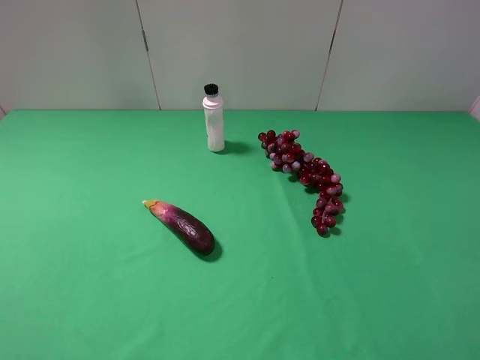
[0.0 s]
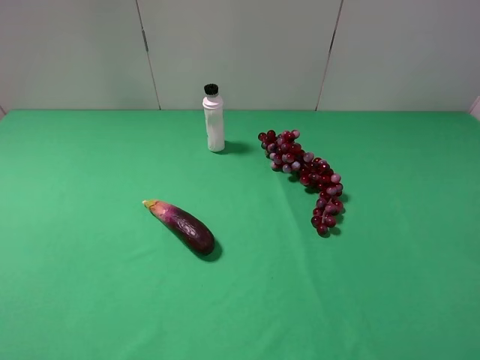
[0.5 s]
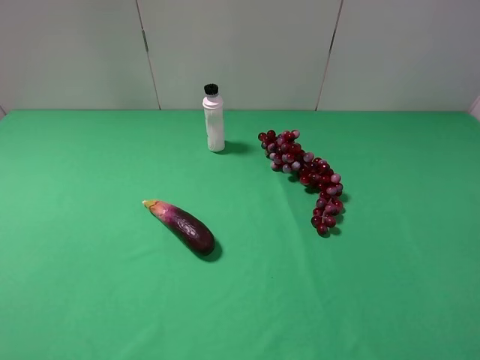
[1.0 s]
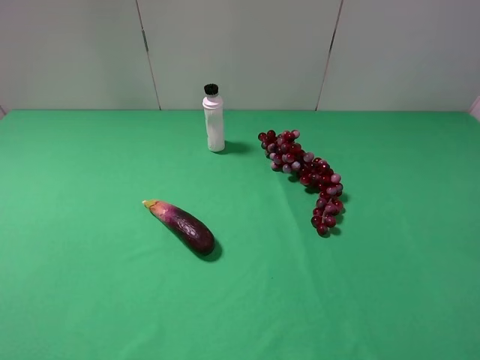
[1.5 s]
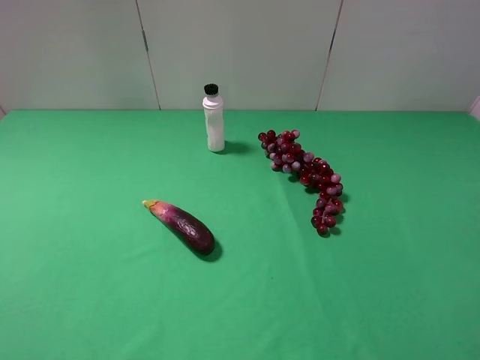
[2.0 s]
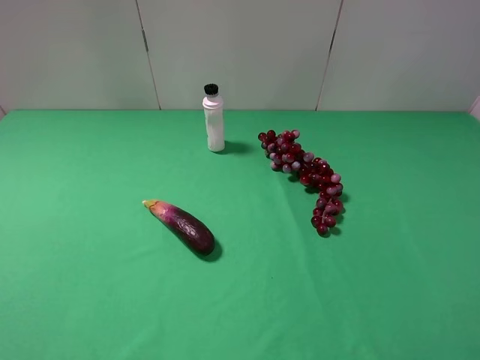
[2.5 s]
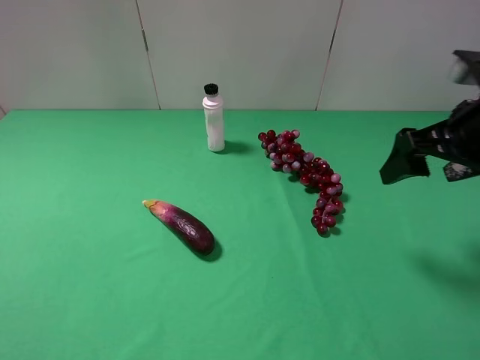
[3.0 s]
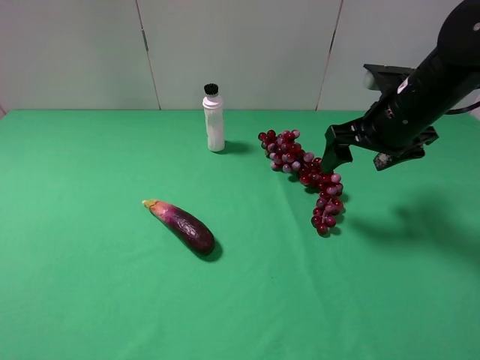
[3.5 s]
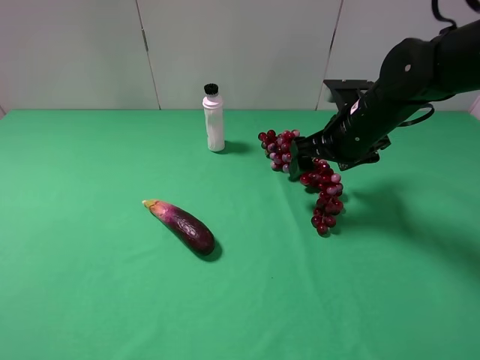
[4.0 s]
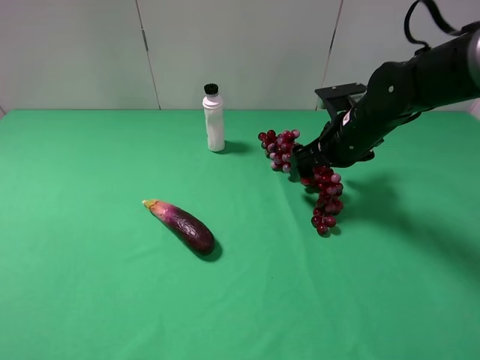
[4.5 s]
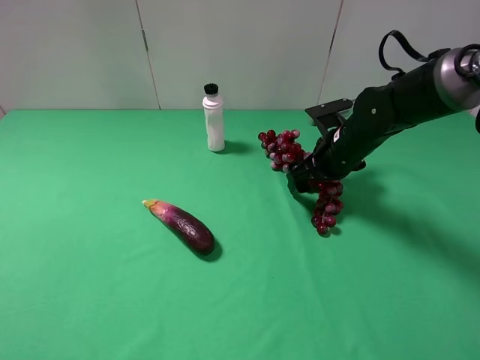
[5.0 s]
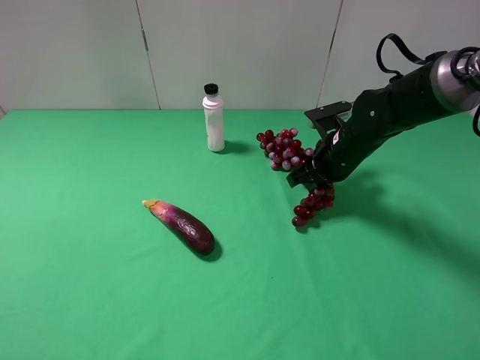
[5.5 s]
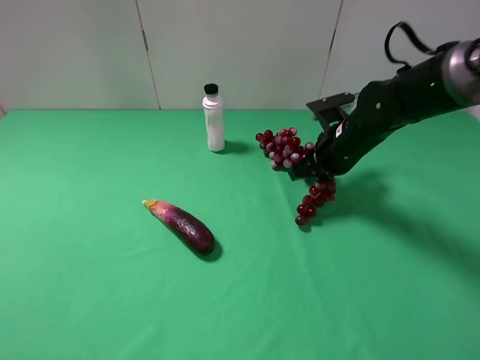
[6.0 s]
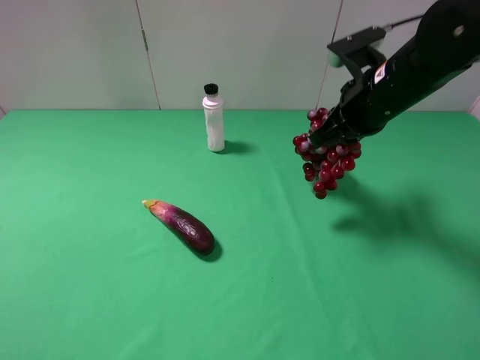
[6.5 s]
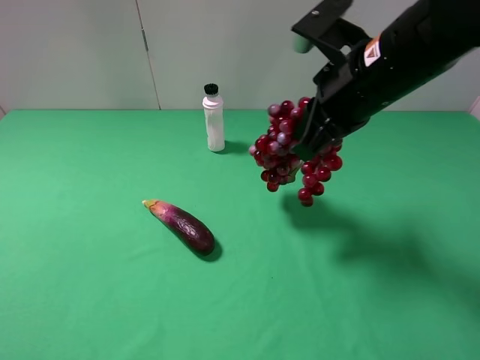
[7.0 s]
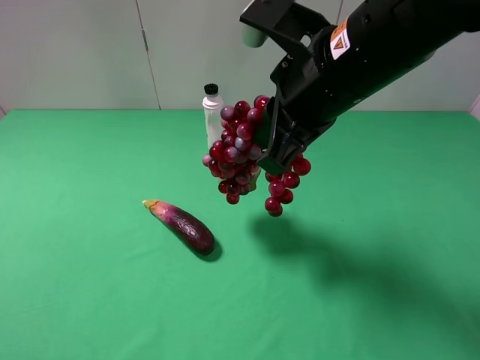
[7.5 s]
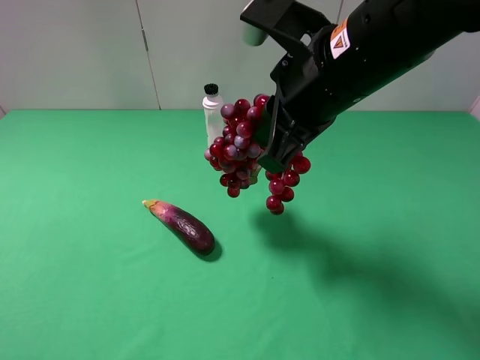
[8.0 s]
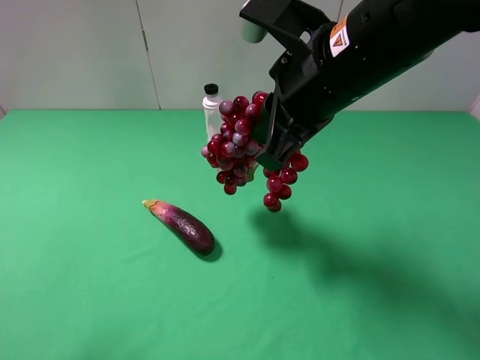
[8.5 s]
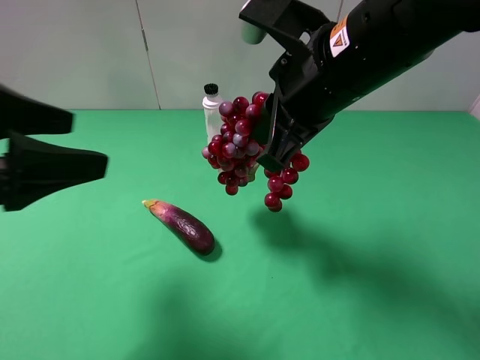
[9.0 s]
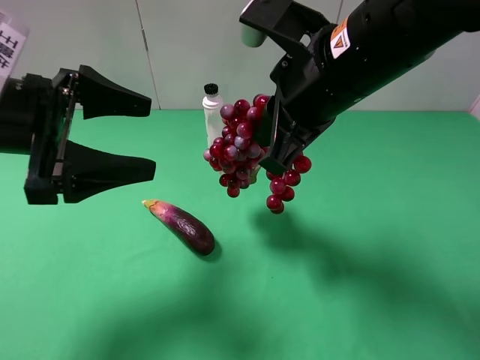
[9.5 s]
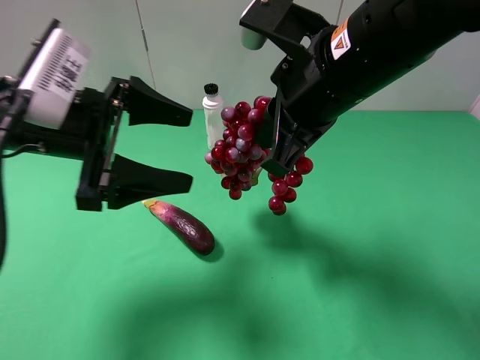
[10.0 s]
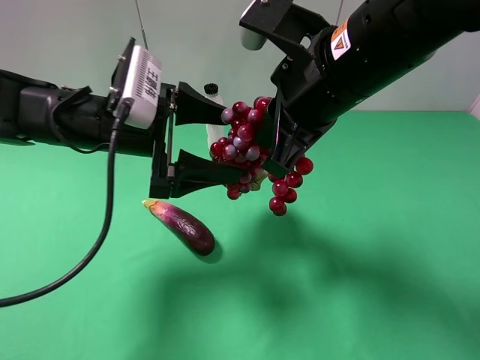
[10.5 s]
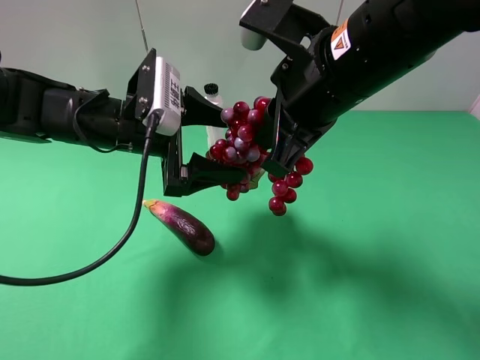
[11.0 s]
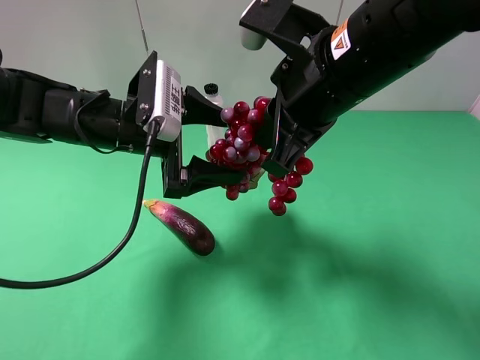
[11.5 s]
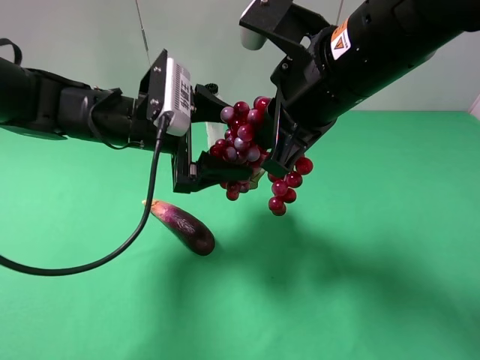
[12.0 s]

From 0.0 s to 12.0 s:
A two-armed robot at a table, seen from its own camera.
Task of the whole recording: use the right gripper to pick up the item and transfer it from the right gripper to the left gripper.
Step, from 0.0 s to 5.5 s: Use the right gripper to grab the grape on the right side of the table.
From 0.0 s to 2.0 s: Neither gripper changes place.
From 2.0 s to 4.0 s: The right gripper moves forward and to the left, about 35 cm.
From 4.0 s to 6.0 s: The right gripper closes its fingers.
From 6.0 s to 8.0 s: The right gripper goes some 20 cm upward, backward and to the left.
From 8.0 s to 10.0 s: The left gripper heads forward and to the right, covering about 25 cm.
From 10.0 s to 12.0 s: The left gripper heads to the right and forward, covering about 10 cm.

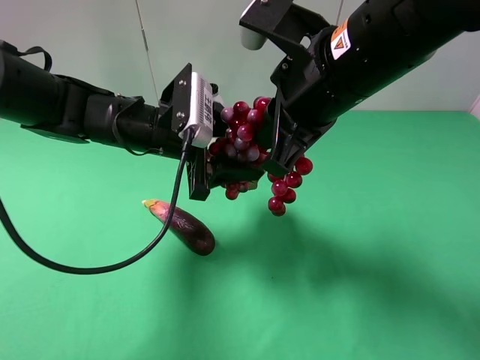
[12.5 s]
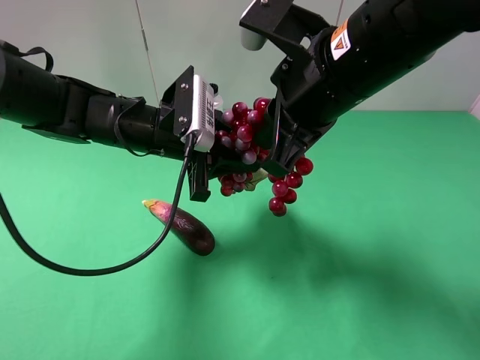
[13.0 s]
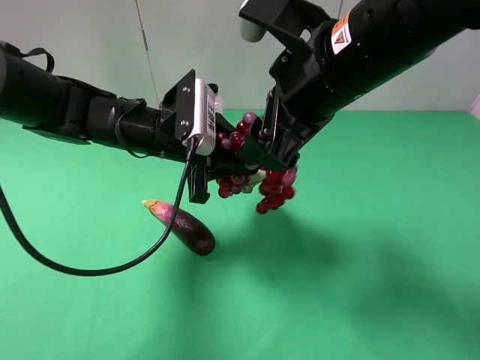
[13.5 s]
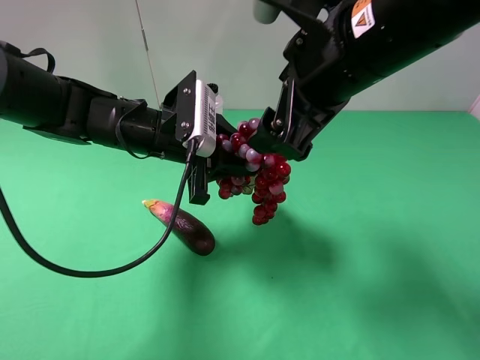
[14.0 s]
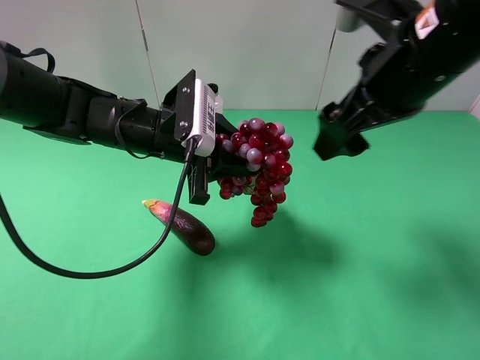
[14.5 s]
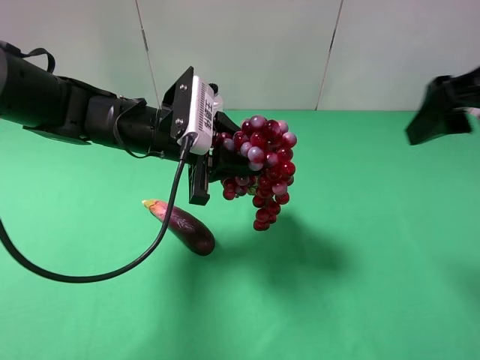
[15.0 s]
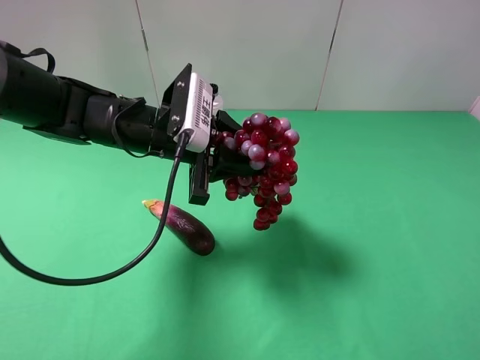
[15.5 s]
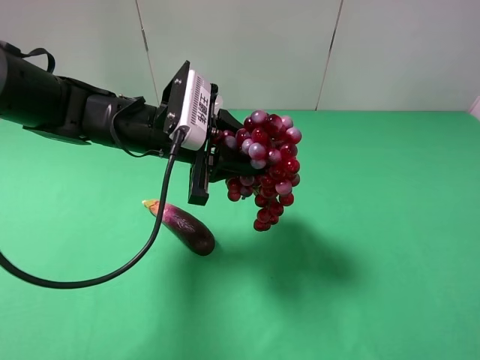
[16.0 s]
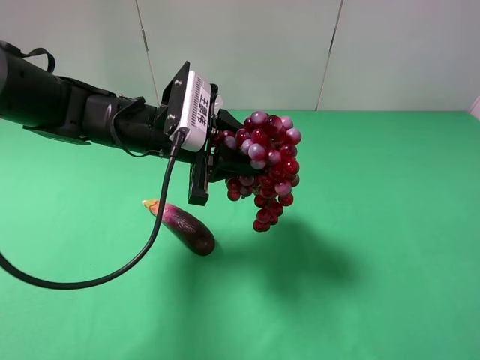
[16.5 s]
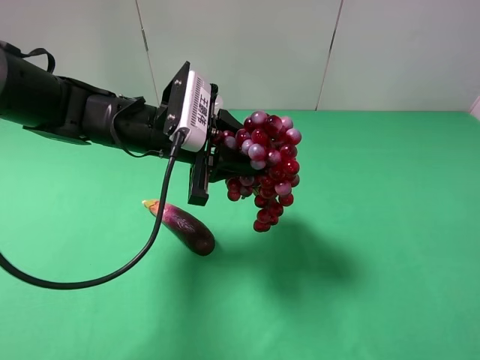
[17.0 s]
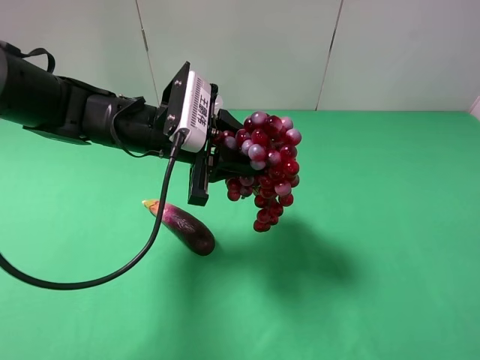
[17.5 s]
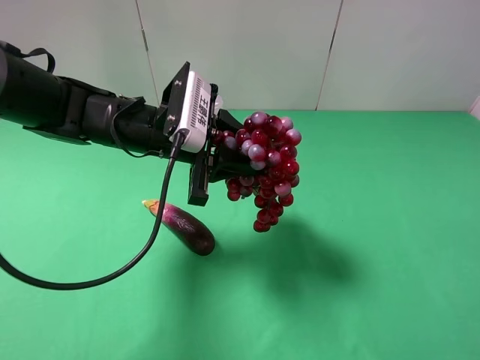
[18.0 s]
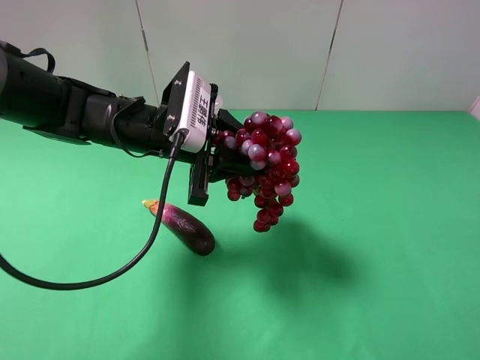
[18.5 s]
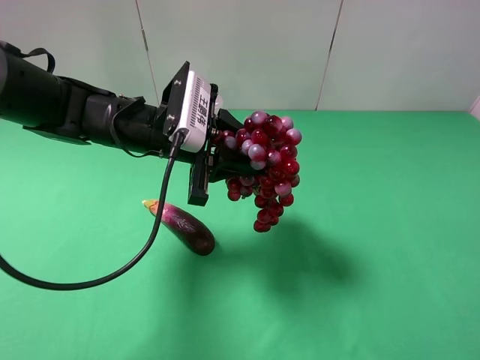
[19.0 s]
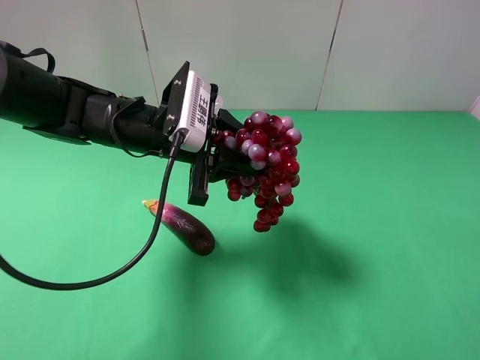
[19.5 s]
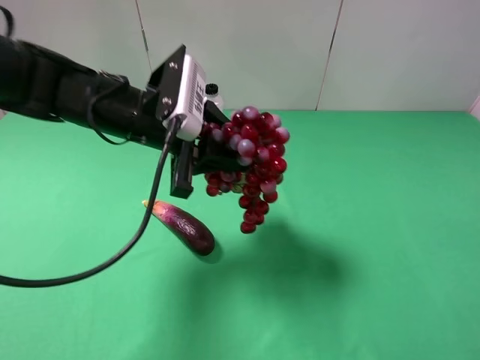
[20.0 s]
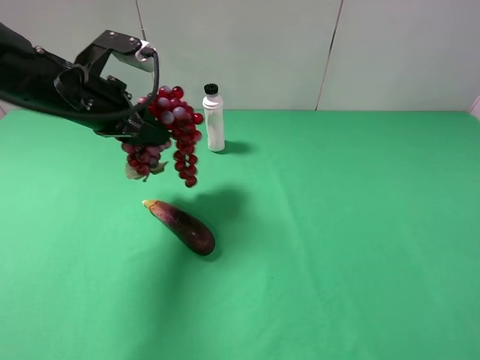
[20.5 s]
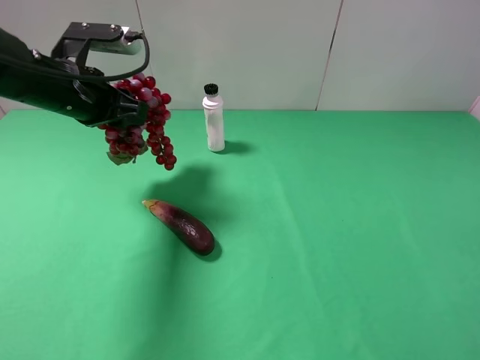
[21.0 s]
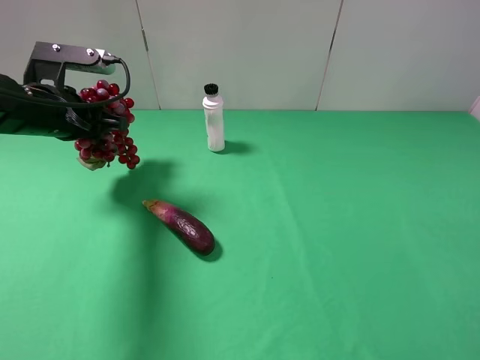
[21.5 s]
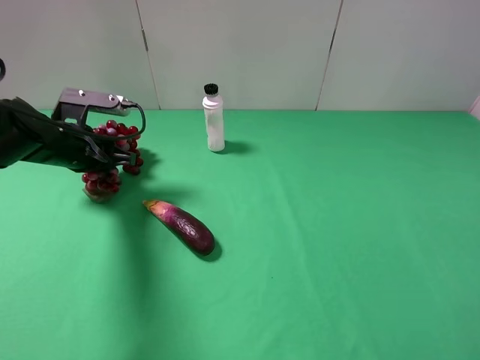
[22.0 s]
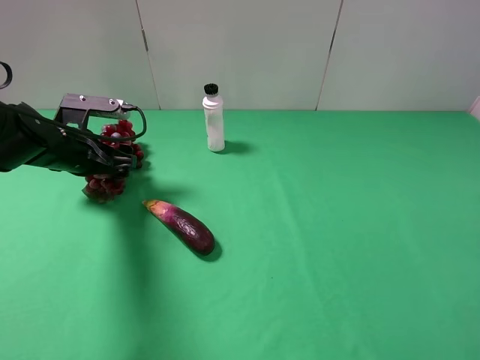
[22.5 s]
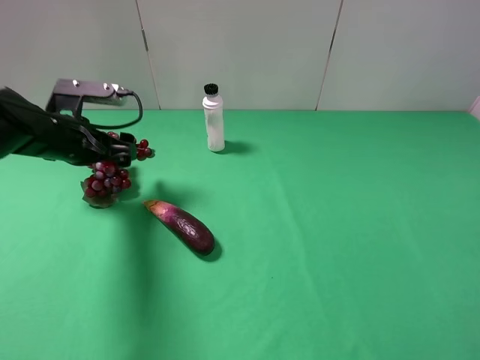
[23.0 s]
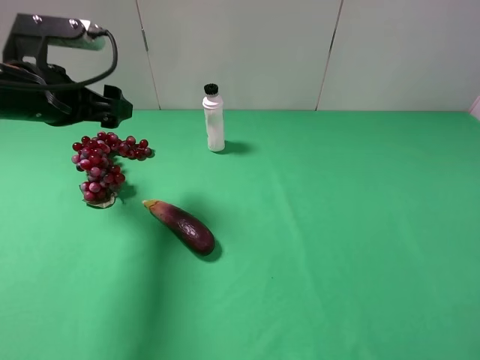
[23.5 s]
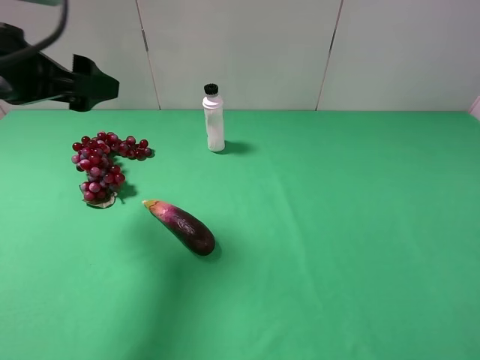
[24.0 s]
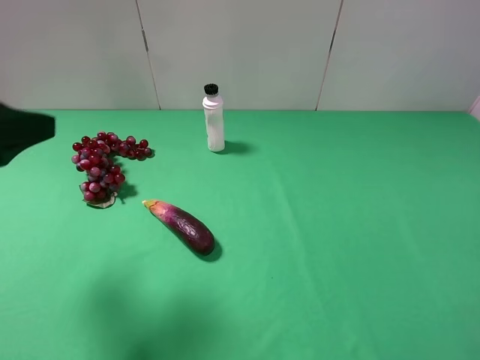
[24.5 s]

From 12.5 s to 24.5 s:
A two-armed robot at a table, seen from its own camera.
Task of the whole recording: use the right gripper to pick up the item and transfer it from the right gripper to the left gripper.
Step, from 14.5 s to 23.0 s: The left gripper places grape on the left side of the table.
From 12.5 s to 14.5 s: The right gripper shifts some 10 cm to the right, and opens.
From 14.5 s to 16.5 s: The right gripper moves backward and to the right, roughly 25 cm.
From 18.5 s to 20.5 s: The left gripper heads to the left, covering roughly 10 cm.
From 20.5 s to 22.5 s: The left gripper heads downward, covering about 10 cm, and opens its fingers.
From 22.5 s to 24.5 s: The left gripper travels backward and upward by about 25 cm.

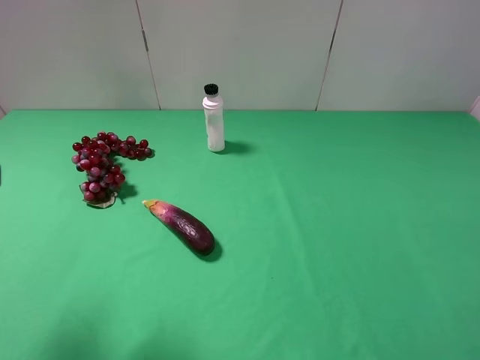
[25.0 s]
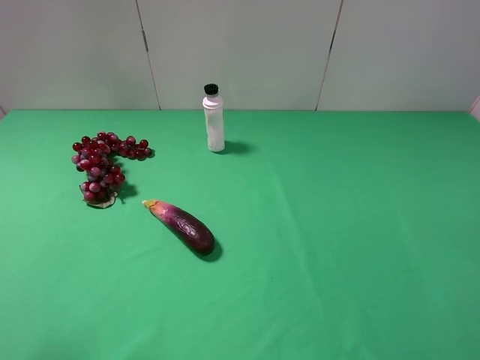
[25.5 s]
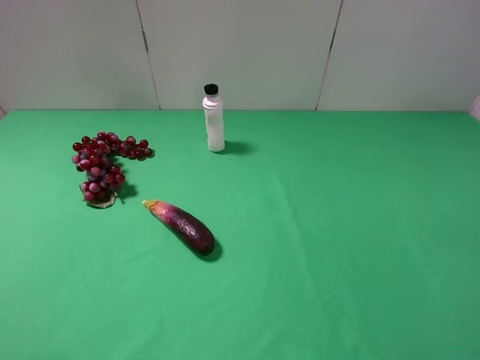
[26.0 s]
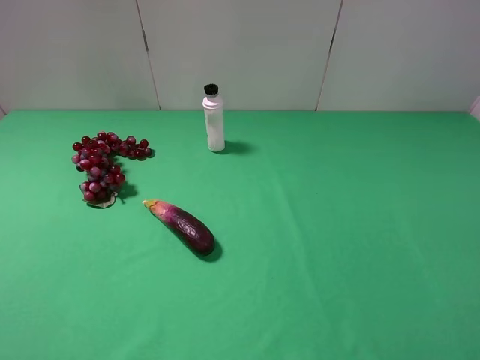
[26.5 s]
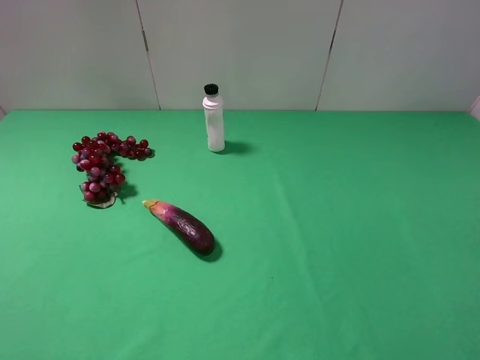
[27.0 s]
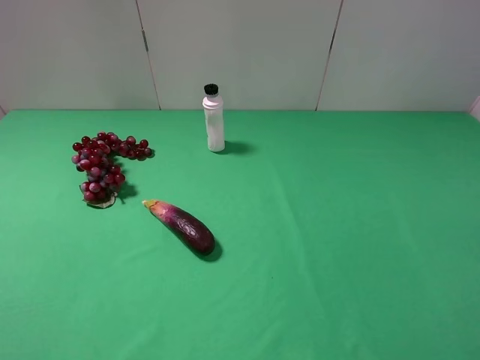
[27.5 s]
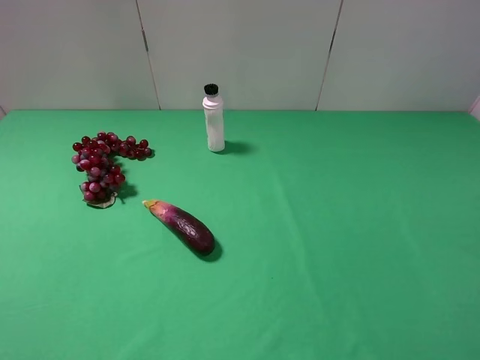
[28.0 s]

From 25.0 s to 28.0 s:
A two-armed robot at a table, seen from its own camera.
Task of the whole recording: use the right gripper to pick up the item and transfer it from the right gripper to the left gripper.
From 25.0 s to 26.5 s: The left gripper heads backward, covering some 10 cm.
